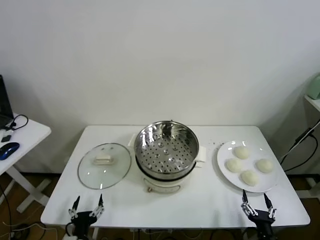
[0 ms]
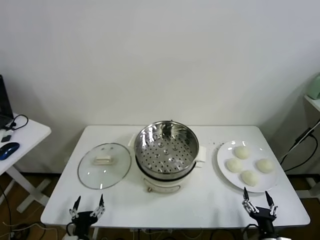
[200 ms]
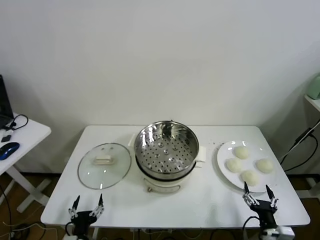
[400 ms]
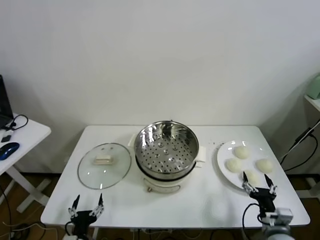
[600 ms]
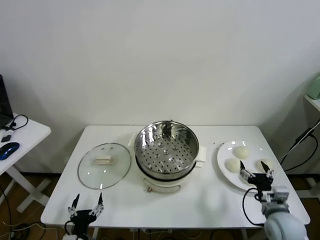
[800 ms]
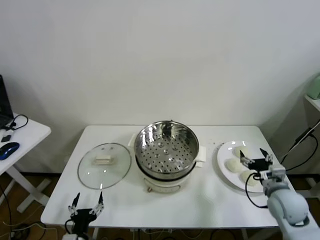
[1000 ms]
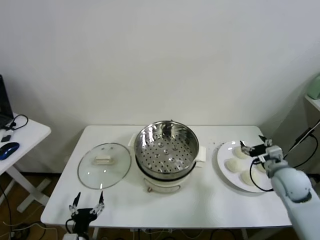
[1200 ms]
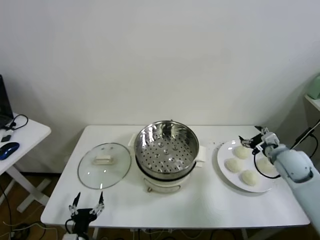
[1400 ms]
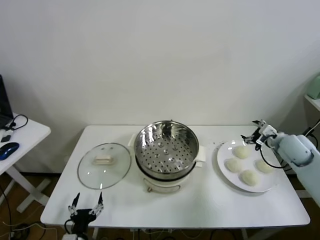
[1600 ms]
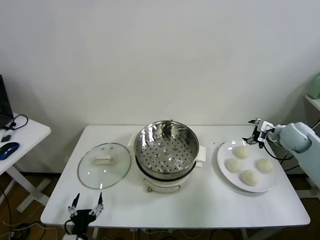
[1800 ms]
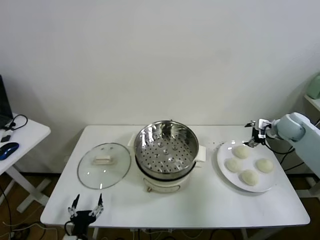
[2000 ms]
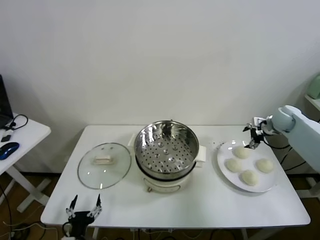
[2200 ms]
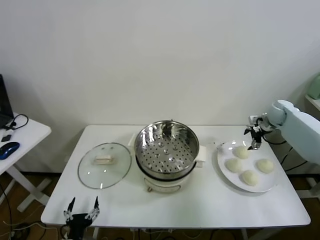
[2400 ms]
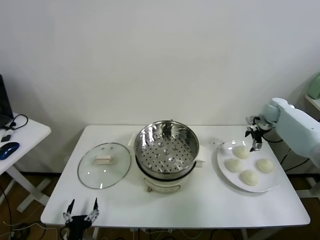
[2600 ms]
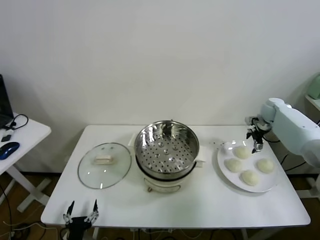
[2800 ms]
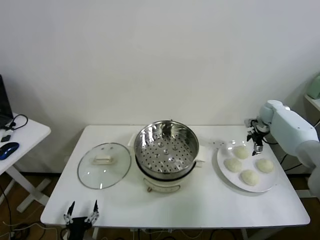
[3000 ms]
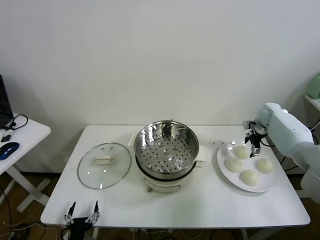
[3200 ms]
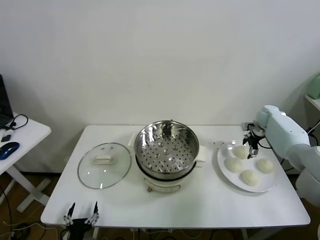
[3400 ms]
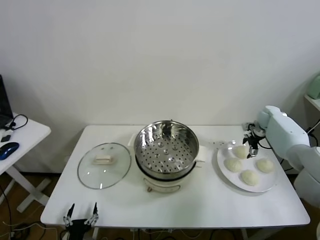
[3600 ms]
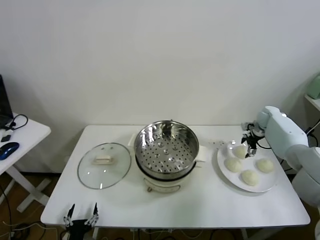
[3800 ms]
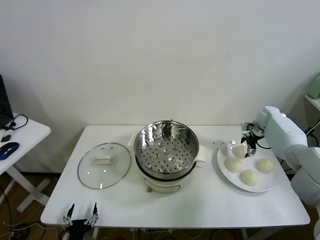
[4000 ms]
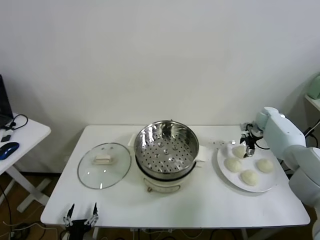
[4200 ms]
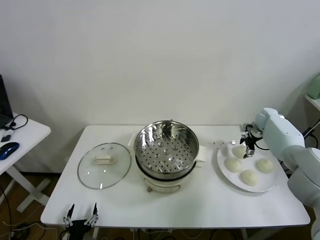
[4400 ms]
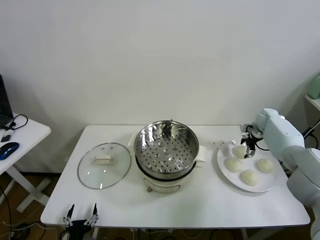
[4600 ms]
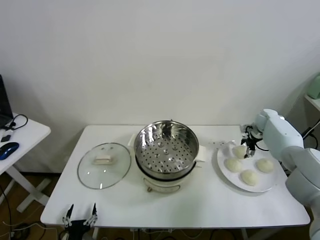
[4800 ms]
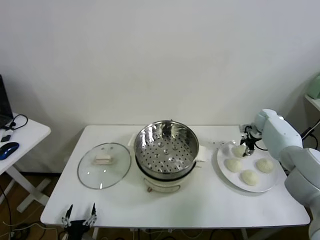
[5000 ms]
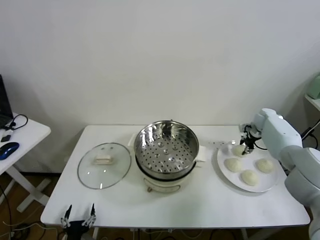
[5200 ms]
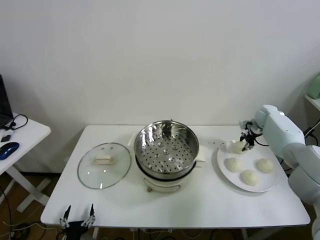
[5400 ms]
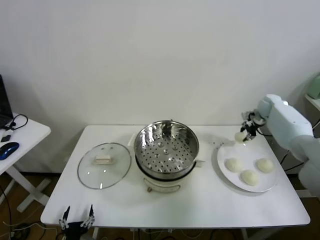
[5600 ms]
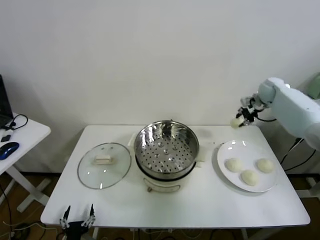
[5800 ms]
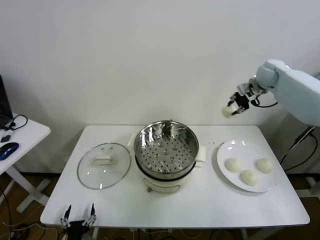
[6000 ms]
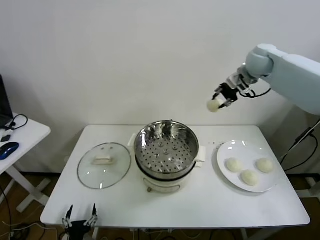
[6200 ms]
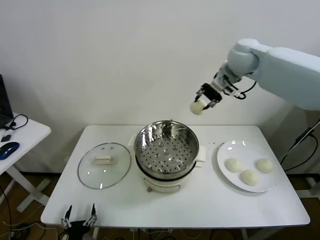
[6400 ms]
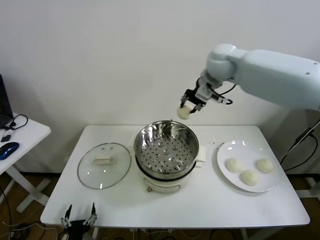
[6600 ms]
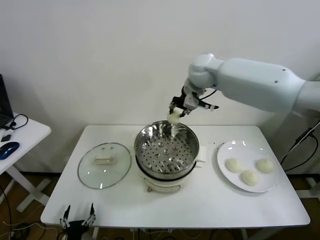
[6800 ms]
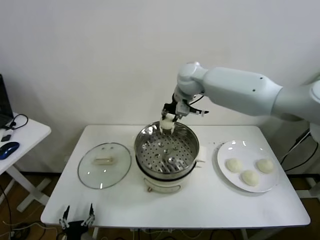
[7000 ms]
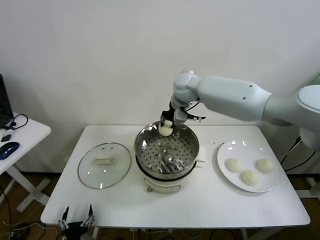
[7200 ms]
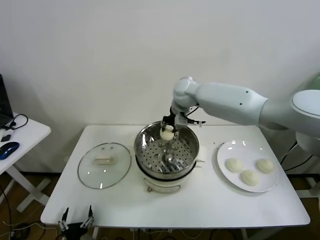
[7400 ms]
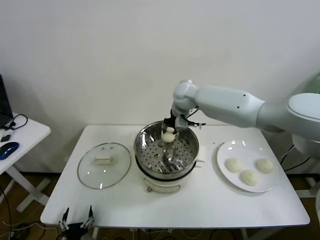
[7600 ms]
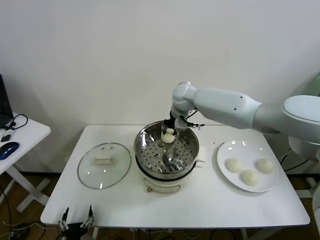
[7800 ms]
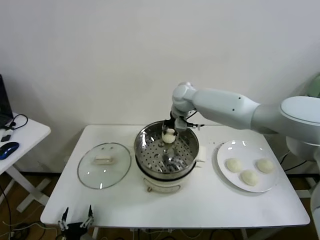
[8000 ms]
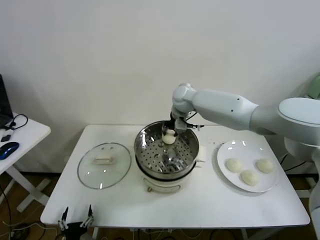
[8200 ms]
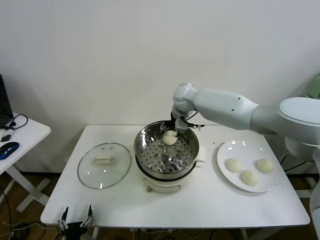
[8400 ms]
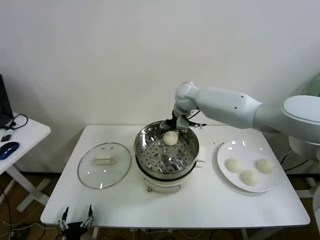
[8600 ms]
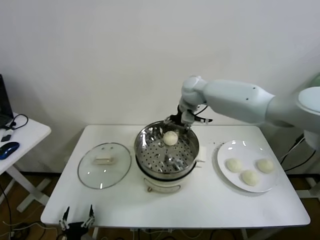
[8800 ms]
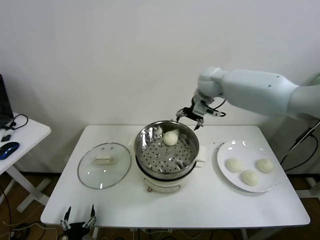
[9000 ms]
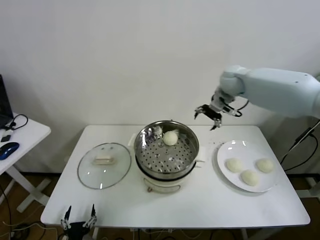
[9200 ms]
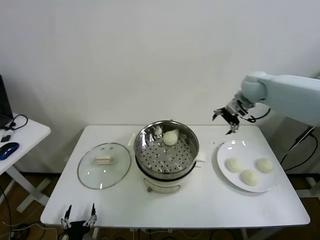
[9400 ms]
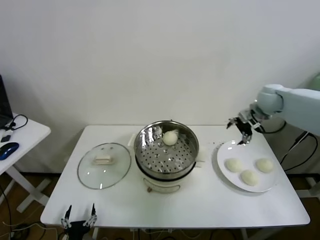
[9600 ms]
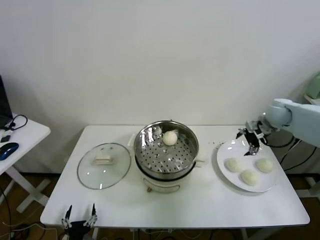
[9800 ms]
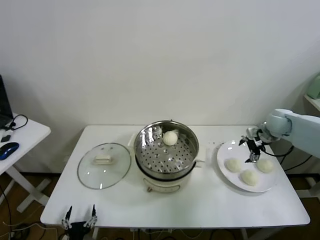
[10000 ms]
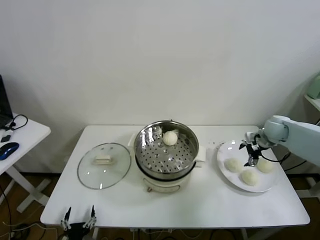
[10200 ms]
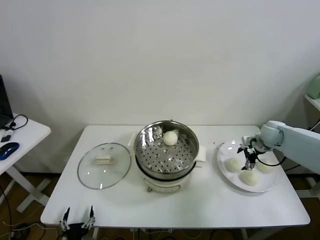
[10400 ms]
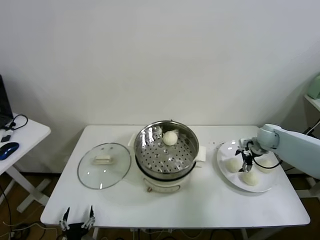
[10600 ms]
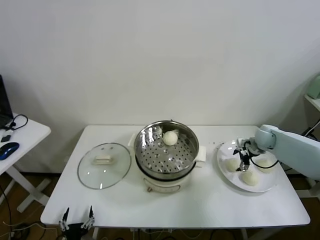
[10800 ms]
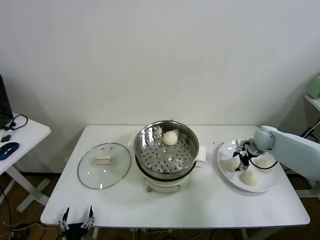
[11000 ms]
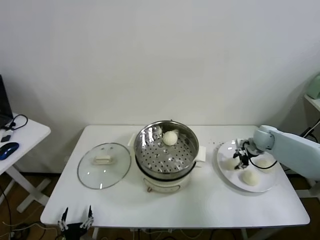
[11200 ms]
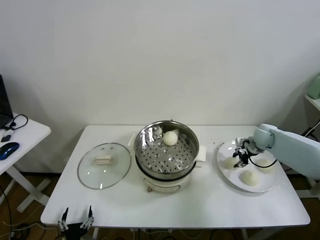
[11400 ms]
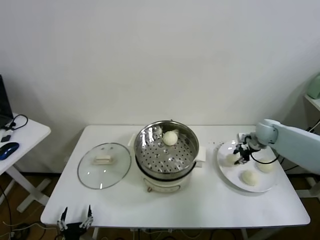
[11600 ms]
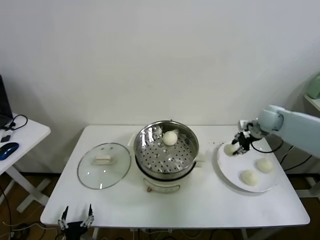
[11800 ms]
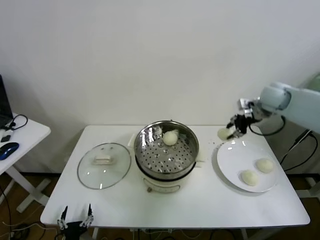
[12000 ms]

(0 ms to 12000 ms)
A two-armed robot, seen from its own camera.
Task of the whole recording: take steamed baozi put them in steamer.
Step, 0 ms - 5000 ms: Grasp the baozi in the plate with right gripper.
Step, 5200 ms - 8600 ms: Place the baozi on the steamer with right gripper.
Step, 8800 ms - 11000 ms: Grasp the baozi in the plate with right gripper.
1600 ms - 3000 ms: The right gripper goes roughly 15 cm forward.
3000 ms - 4400 ms: The grippers stay close to where they were, moving slightly.
4400 ms - 6000 ms: The right gripper moves upward and to the left, some 30 cm, and closes its fingers.
6000 ms - 7600 ms: The right gripper is displaced to the left and downward by about 30 cm.
7600 ms - 9000 ms: The right gripper is displaced to the right and upward by some 15 cm, and opens its fingers.
9000 ms - 10400 ms: The right gripper travels to the right and downward by about 30 cm.
10400 ms - 12000 ms: The right gripper travels upward by some 20 cm, and closes its fingers.

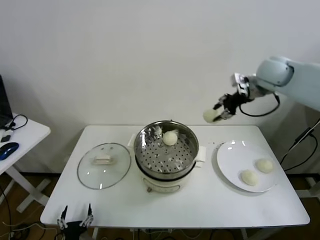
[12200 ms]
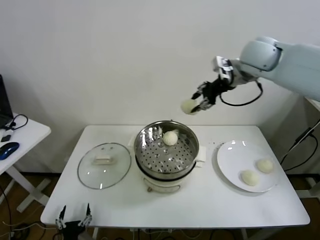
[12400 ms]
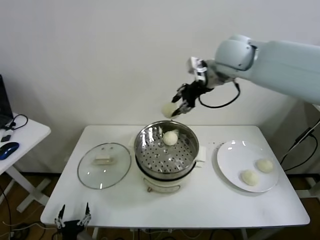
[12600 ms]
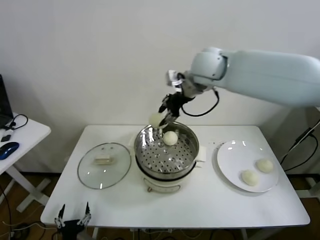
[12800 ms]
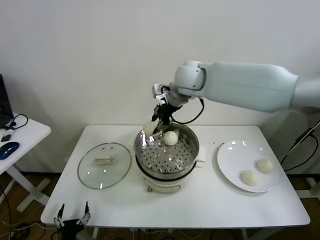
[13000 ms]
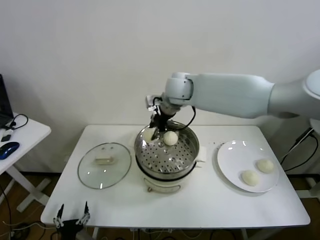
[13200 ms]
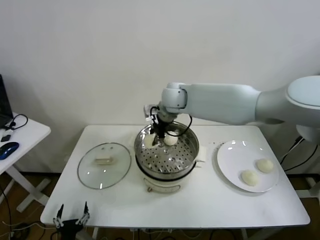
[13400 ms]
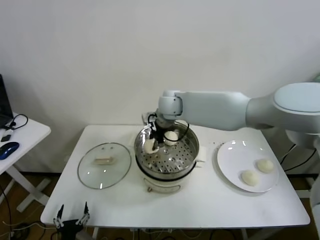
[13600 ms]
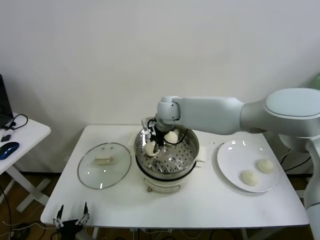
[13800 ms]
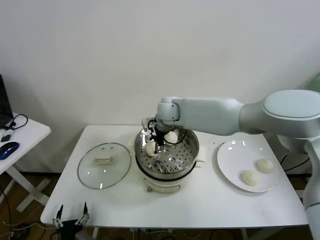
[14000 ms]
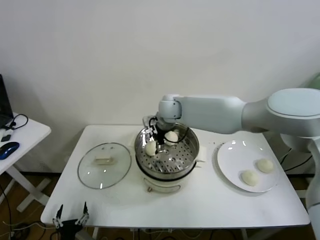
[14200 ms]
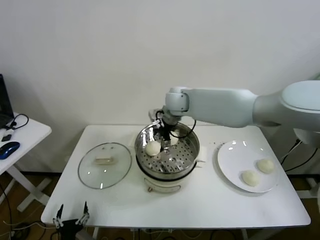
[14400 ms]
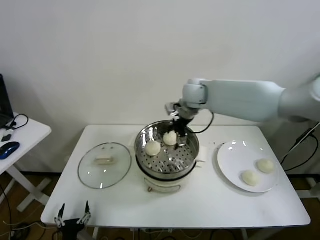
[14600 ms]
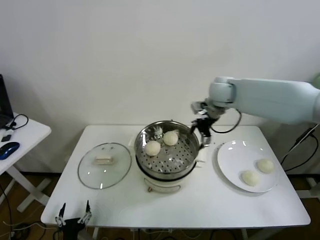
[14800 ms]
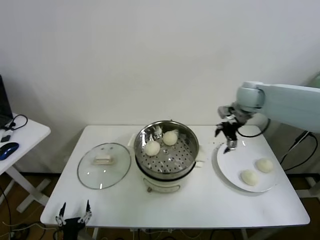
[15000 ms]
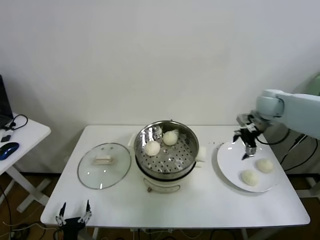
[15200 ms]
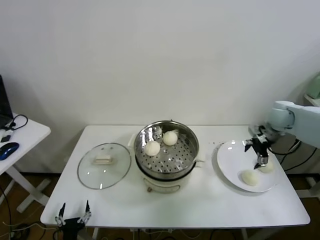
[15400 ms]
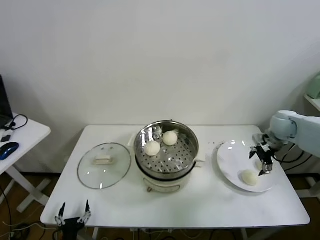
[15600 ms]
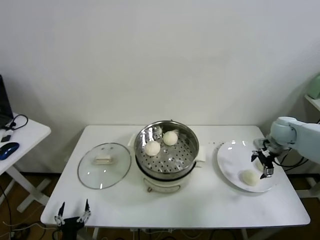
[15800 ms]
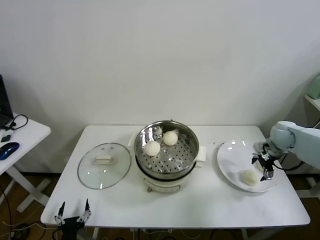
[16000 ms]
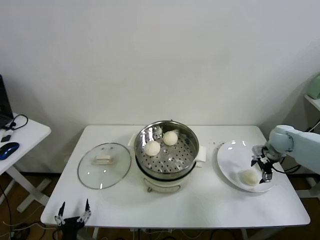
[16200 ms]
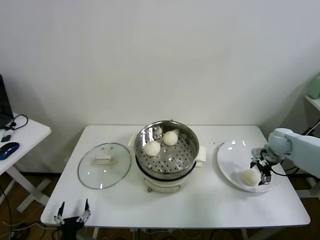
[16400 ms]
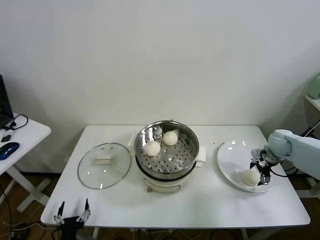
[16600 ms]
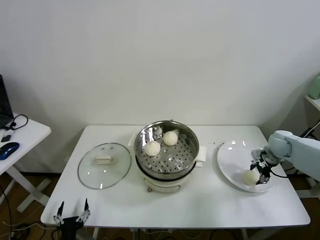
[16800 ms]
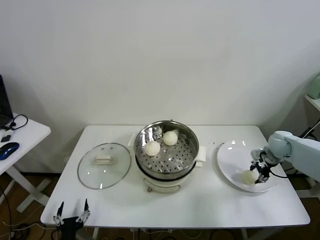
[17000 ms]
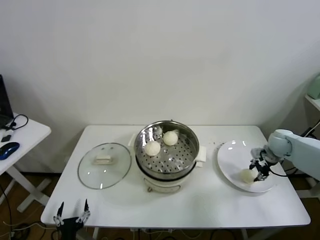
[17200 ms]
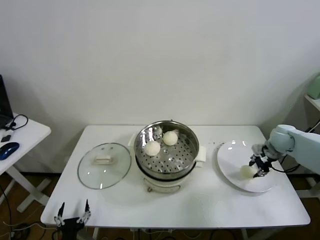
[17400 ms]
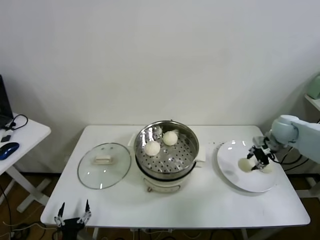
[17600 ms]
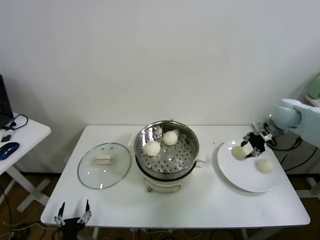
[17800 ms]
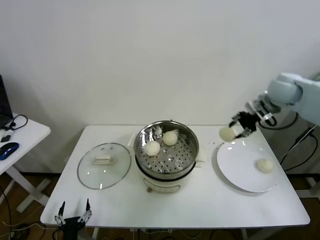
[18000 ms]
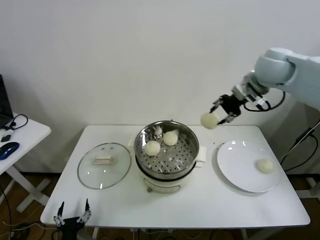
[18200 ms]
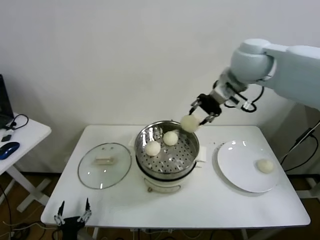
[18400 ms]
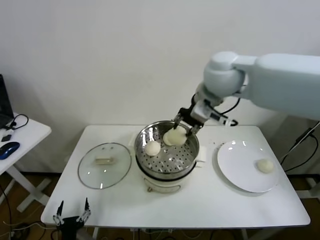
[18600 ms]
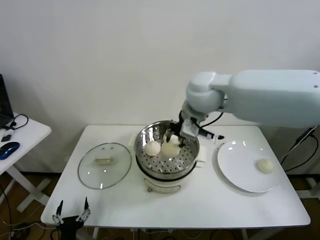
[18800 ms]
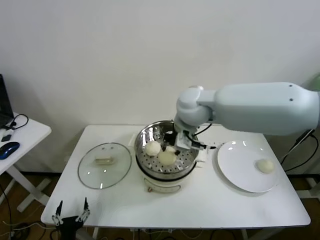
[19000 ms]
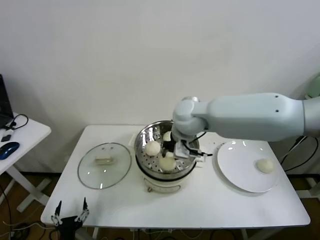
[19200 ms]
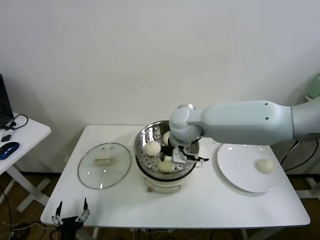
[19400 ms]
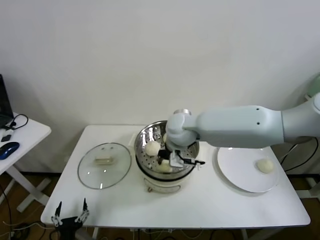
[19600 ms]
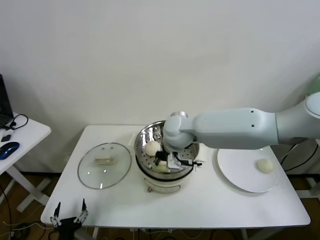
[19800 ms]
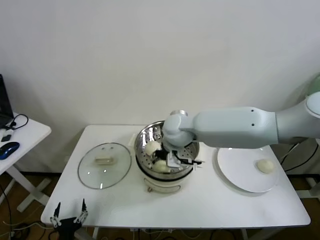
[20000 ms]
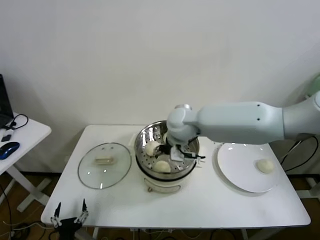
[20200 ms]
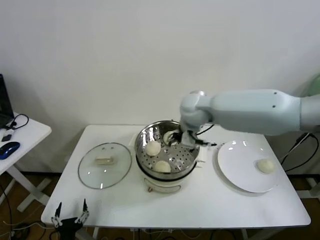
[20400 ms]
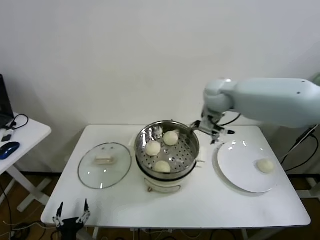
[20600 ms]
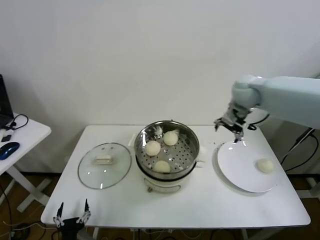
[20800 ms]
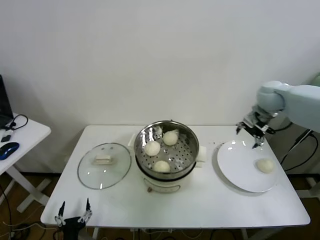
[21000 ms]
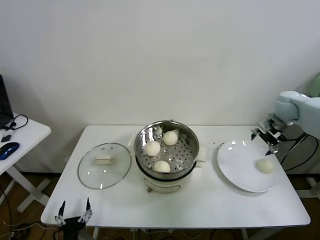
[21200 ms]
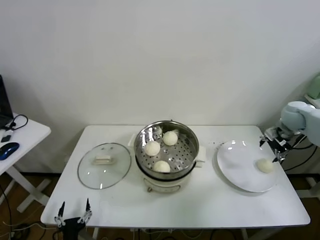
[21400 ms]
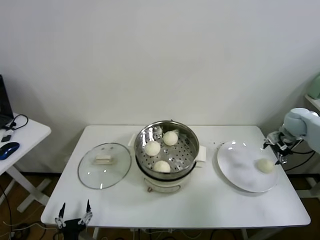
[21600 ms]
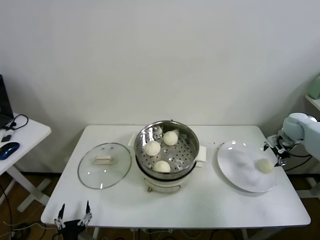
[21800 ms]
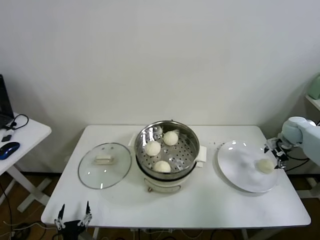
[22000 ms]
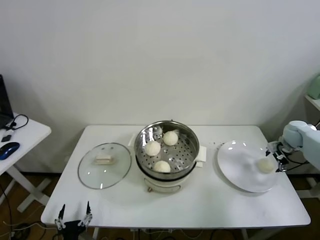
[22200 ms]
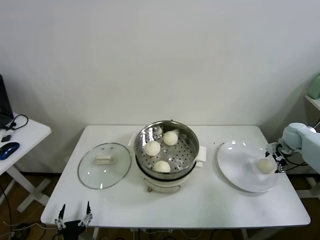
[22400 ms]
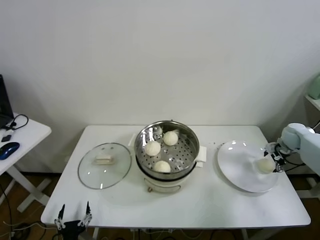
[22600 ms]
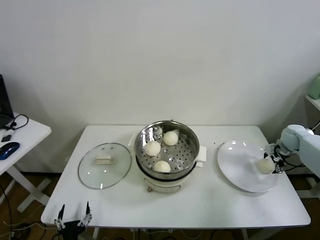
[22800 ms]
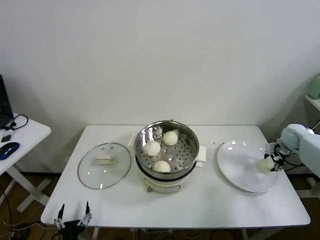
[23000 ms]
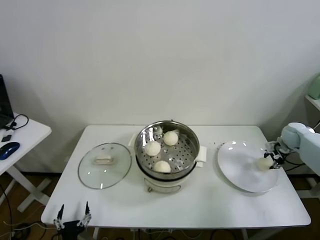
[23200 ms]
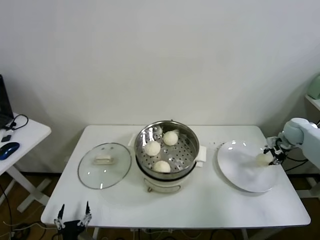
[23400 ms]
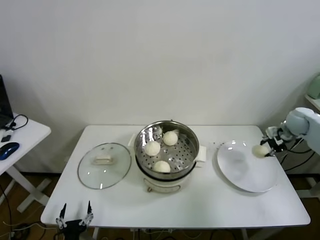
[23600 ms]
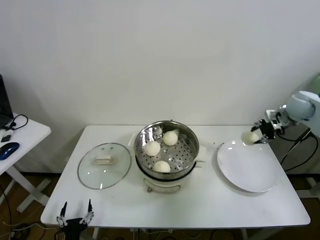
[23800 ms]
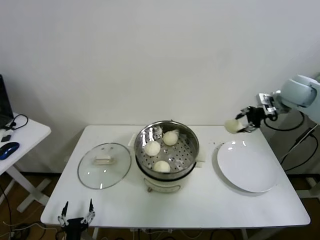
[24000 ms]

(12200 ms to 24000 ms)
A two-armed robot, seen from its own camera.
Task of the whole recording: take steamed baozi put them in steamer.
Step, 12200 ms - 14200 ms: Place the baozi on the steamer with right gripper.
Step, 14400 ms - 17000 ms: Grasp the baozi in the plate with right gripper.
Step, 17200 ms - 20000 ms: Place the baozi on the steamer with right gripper.
Step, 20200 ms - 23000 ms: Grasp the baozi in the plate with right gripper.
12200 ms - 13600 ms: The right gripper shifts roughly 30 cm to the left and downward.
13600 ms - 15200 ms: The right gripper moves to the right, some 35 cm, and opens its fingers.
15200 ms - 16600 ms: The right gripper moves downward and to the right, approximately 15 cm.
16600 ms - 18200 ms: The right gripper moves upward and to the left, about 35 cm, and closes up.
18200 ms - 19600 ms: The right gripper shifts about 30 cm to the left and downward.
19600 ms - 21000 ms: The right gripper is displaced to the right by some 30 cm, and opens.
21000 ms - 22600 ms: The right gripper goes about 25 cm downward and to the right.
22600 ms - 24000 ms: The right gripper heads upward and to the left, covering some 25 cm, and closes up.
